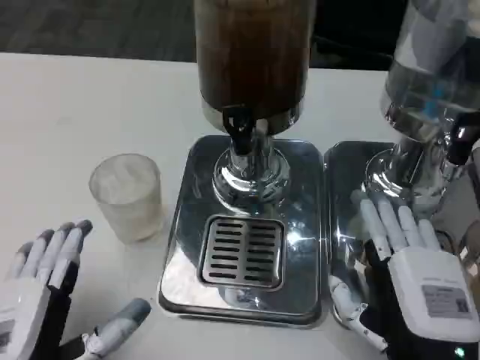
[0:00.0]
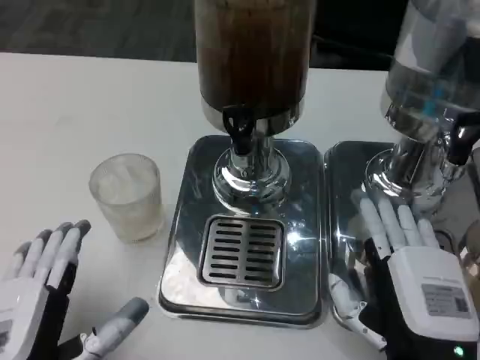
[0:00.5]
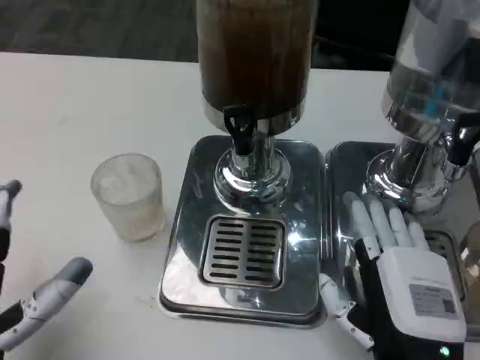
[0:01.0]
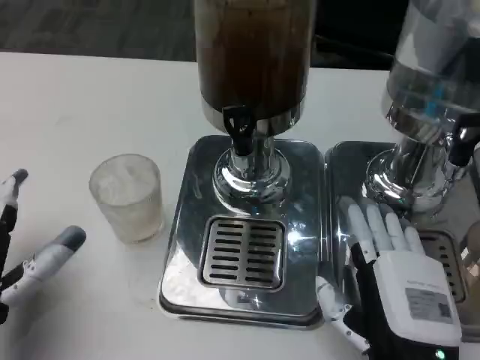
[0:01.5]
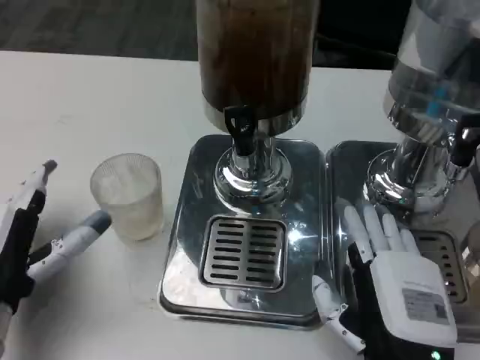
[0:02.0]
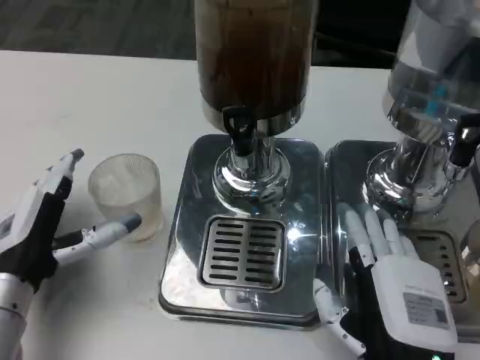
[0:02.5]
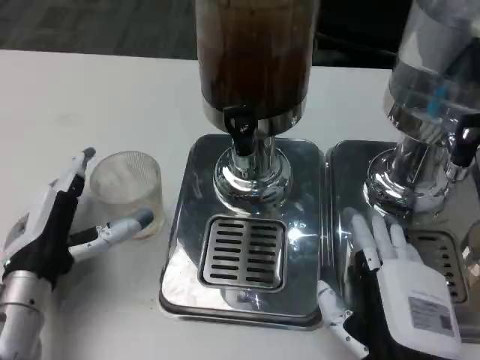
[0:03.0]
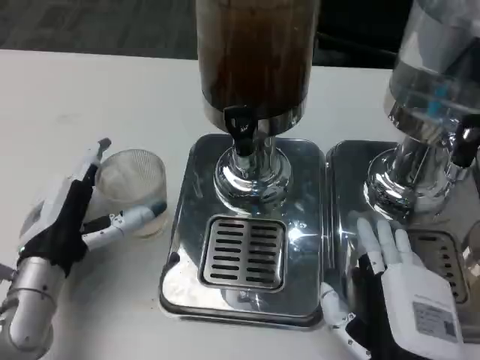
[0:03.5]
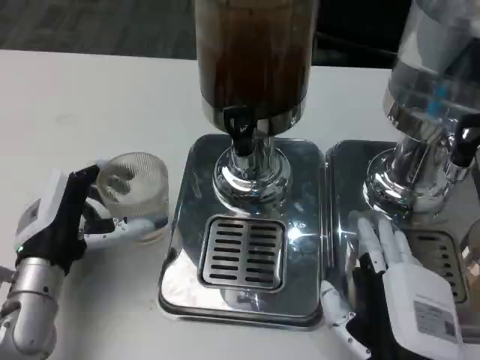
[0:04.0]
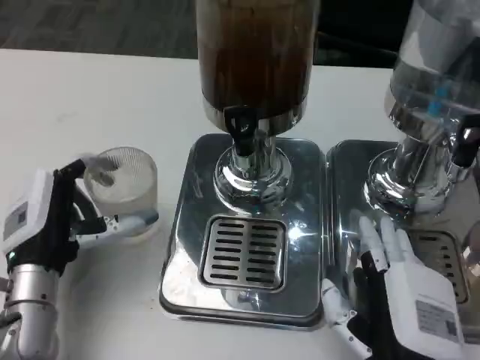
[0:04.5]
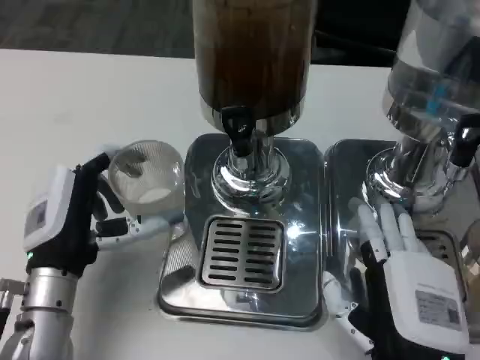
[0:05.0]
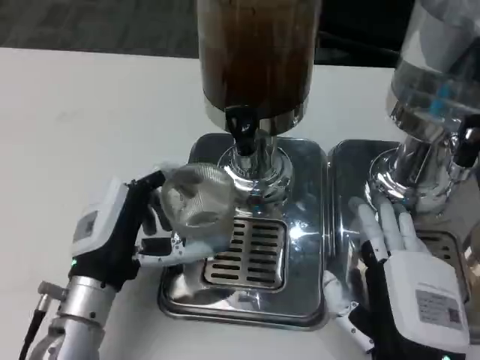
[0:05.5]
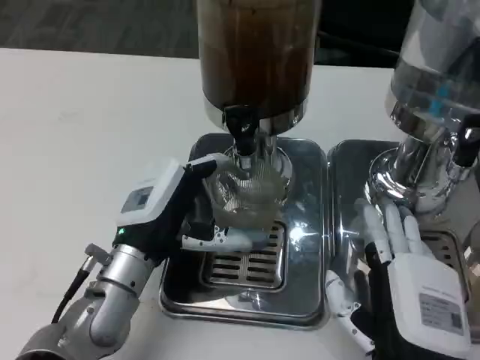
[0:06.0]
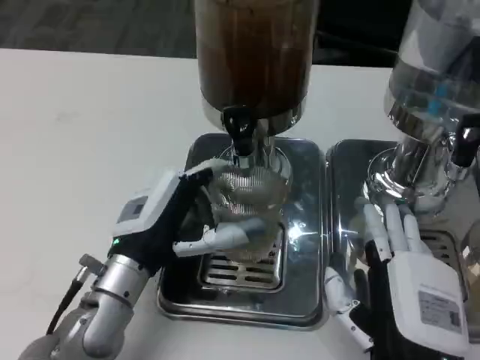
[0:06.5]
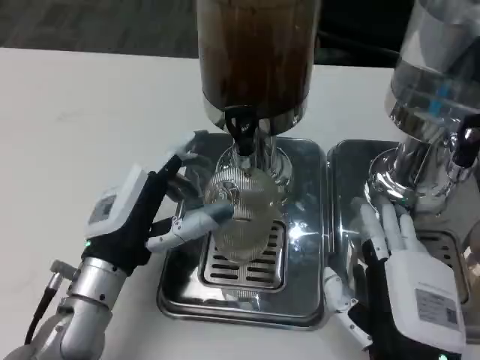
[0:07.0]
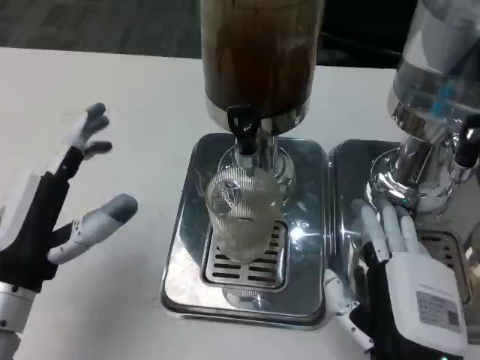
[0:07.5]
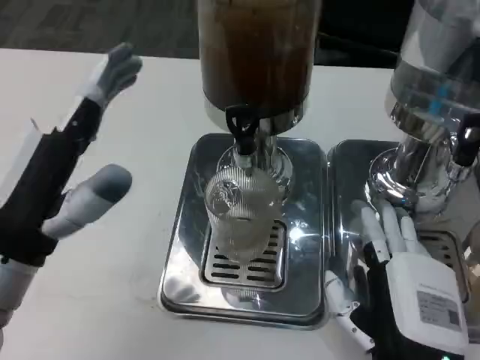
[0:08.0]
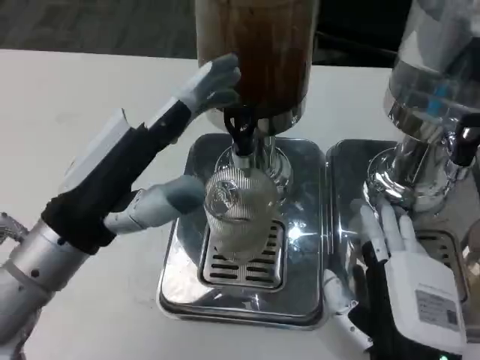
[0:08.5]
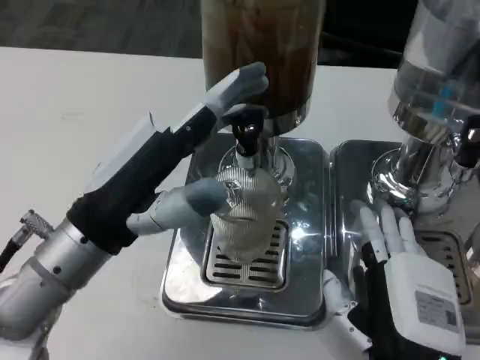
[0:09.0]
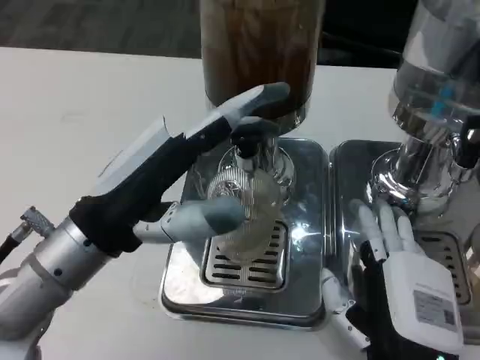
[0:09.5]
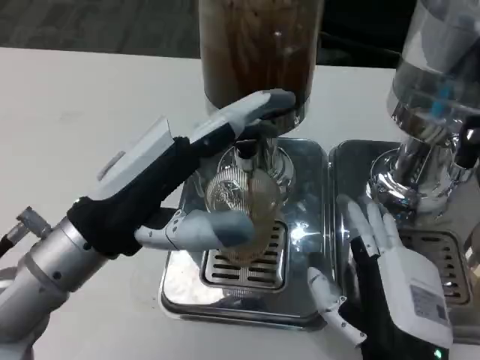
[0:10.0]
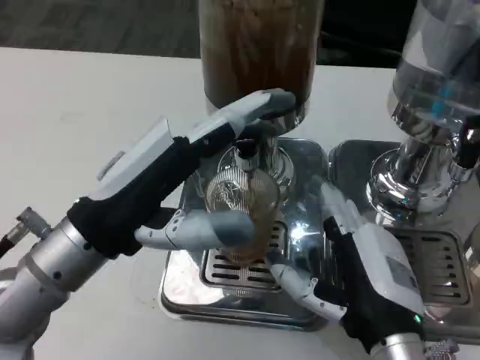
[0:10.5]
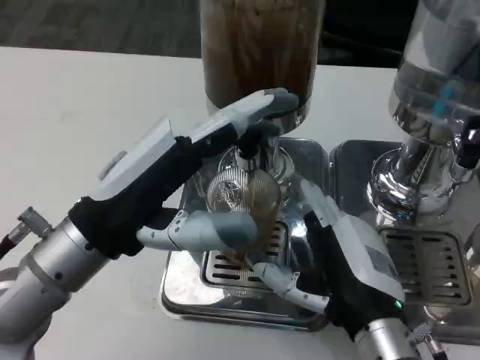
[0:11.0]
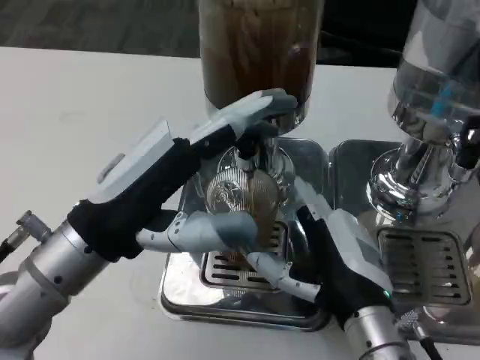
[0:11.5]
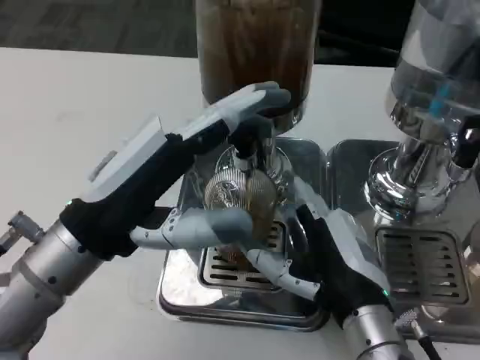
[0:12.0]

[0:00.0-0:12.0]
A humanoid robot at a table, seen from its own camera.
Task of the whole recording: Grasp the cup under the faucet to collect the drink, then remove the cup.
0:00.0 to 0:02.0: The left hand travels forward by some 10 cm.
0:02.0 to 0:04.0: The left hand changes place by some 5 cm.
0:04.0 to 0:06.0: The left hand travels to the right by roughly 5 cm.
0:06.0 to 0:08.0: The left hand travels upward, to the left and backward by some 15 cm.
0:08.0 to 0:10.0: The left hand moves some 5 cm.
0:10.0 to 0:12.0: The right hand shifts some 5 cm forward.

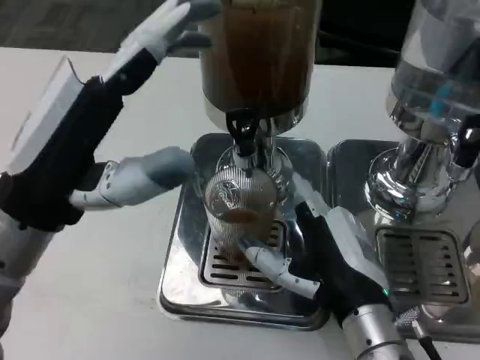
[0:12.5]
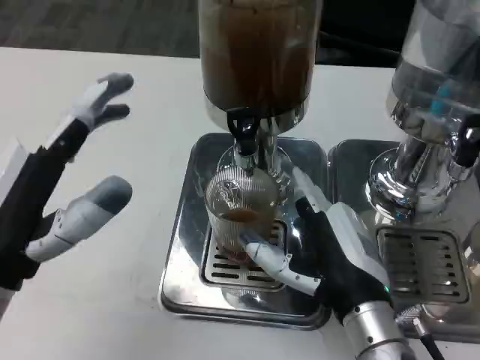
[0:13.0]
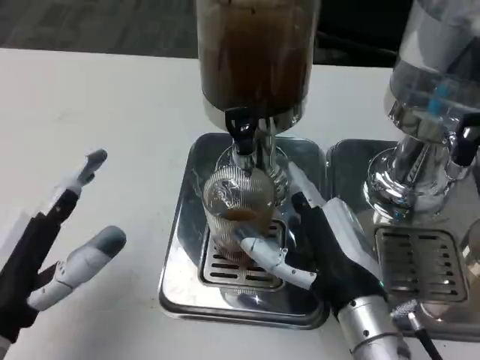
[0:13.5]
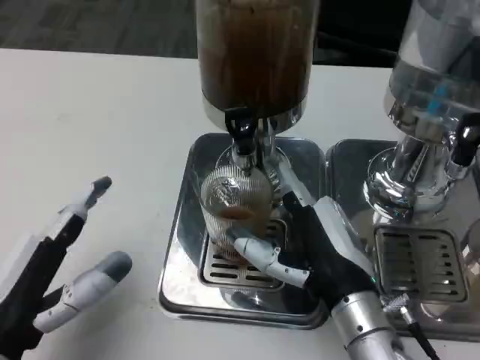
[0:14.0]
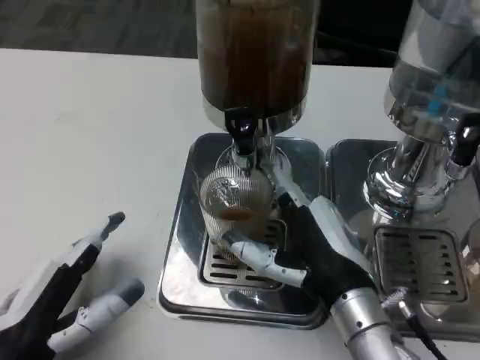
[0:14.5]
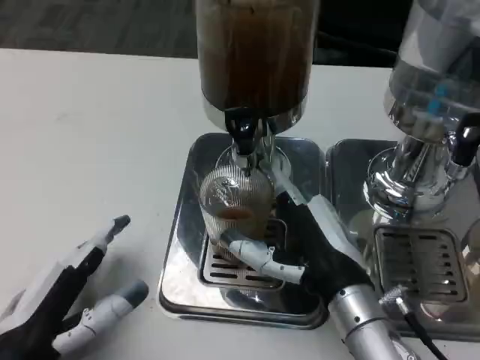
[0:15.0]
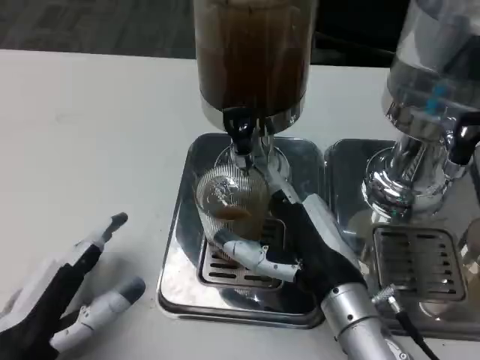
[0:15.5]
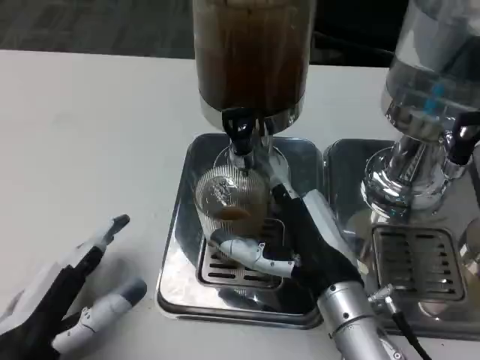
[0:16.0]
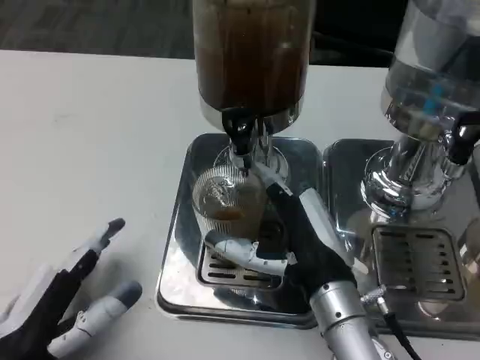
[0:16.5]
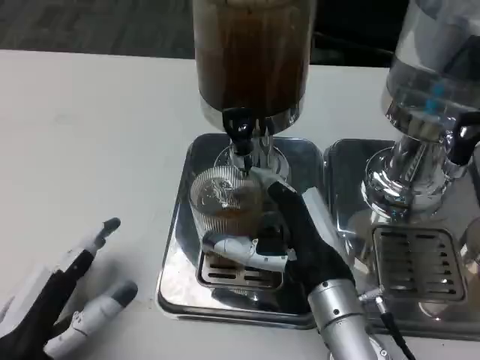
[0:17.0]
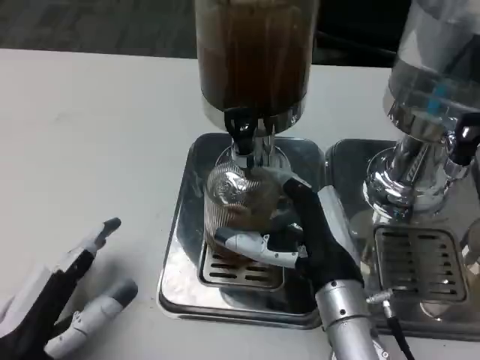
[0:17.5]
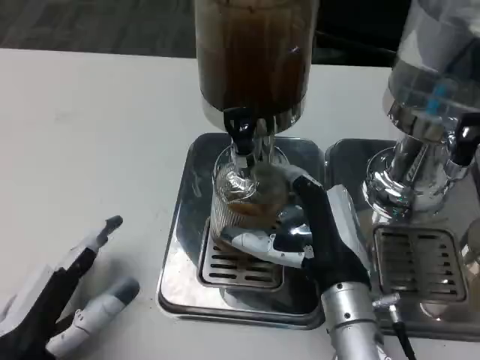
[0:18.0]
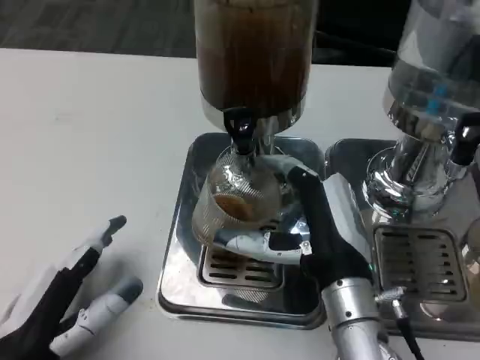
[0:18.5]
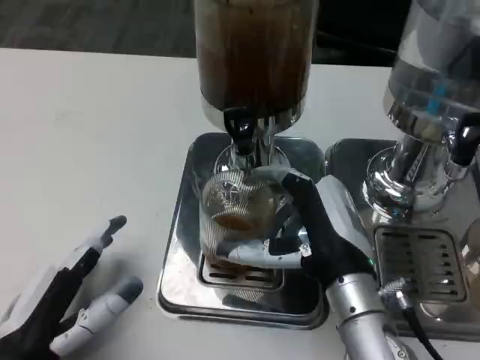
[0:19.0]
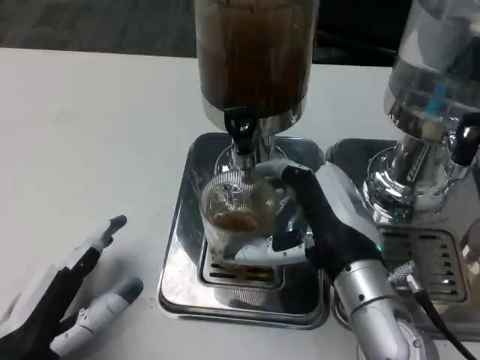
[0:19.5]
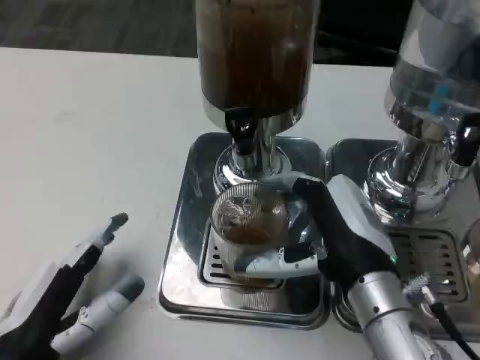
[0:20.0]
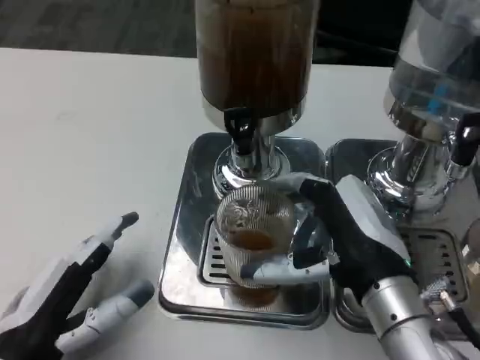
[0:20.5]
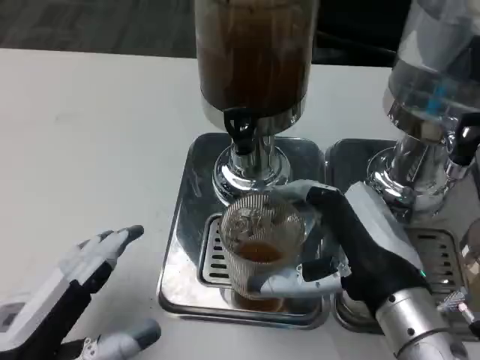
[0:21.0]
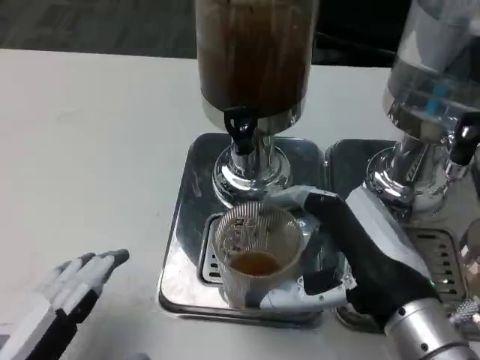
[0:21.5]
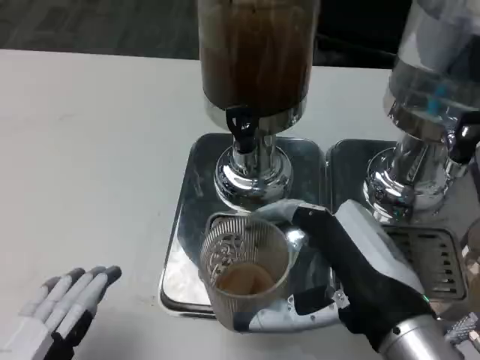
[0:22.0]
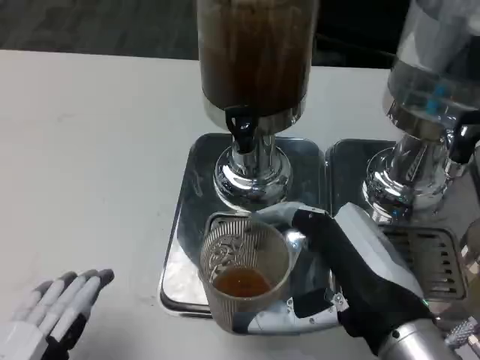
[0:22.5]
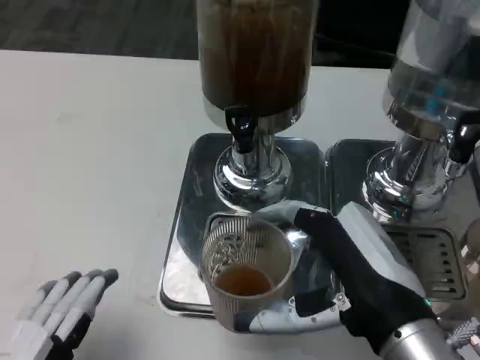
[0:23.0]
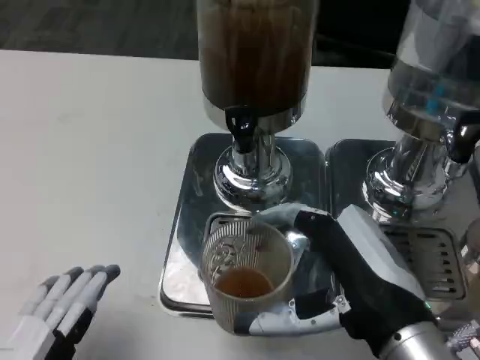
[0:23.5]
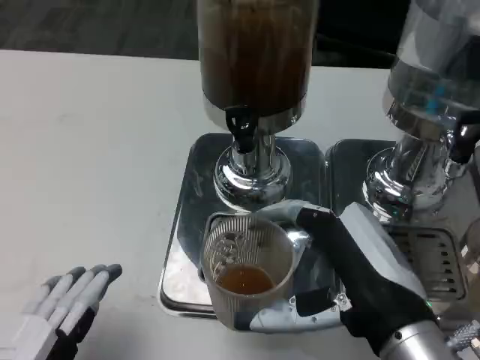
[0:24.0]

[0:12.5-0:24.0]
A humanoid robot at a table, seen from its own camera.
Task of the whole recording: Grasp the cup under the faucet to collect the drink, then remove the cup.
0:12.5 to 0:14.5: The left hand moves downward and backward, some 15 cm.
0:14.5 to 0:20.0: There are only small adjustments of the hands.
0:20.0 to 0:22.0: The two hands go about 5 cm backward.
0:22.0 to 0:24.0: The two hands keep their place.

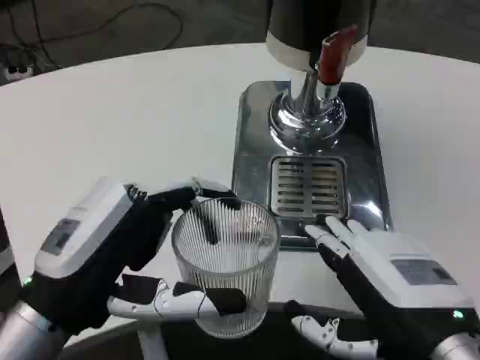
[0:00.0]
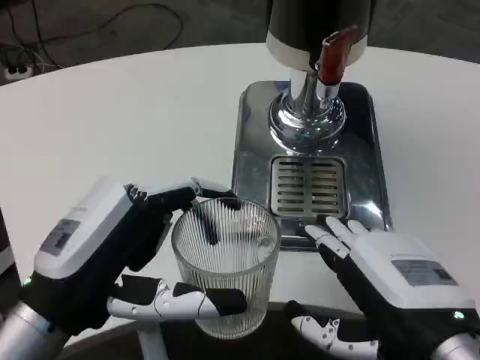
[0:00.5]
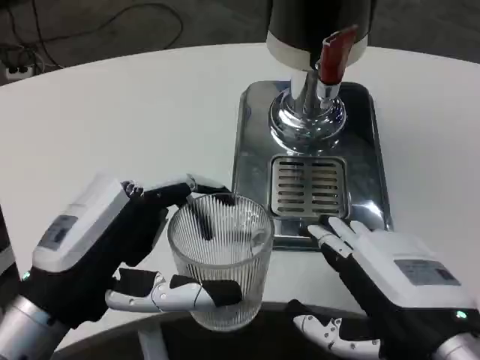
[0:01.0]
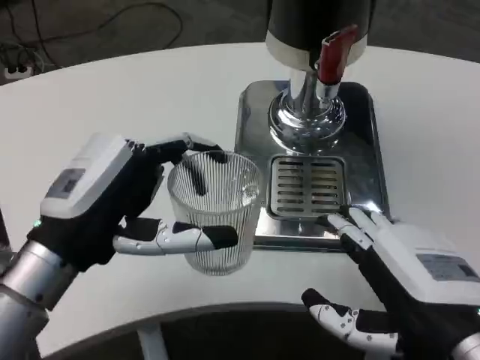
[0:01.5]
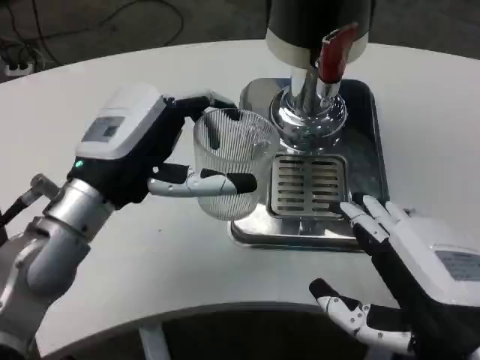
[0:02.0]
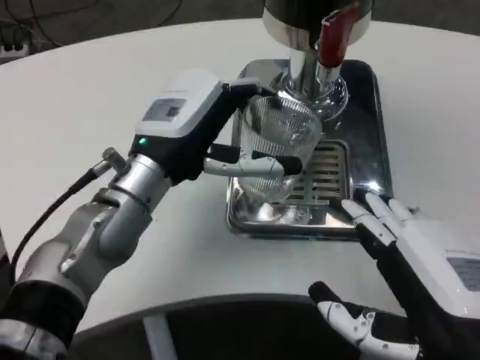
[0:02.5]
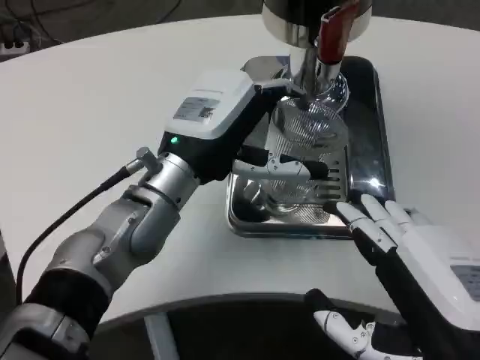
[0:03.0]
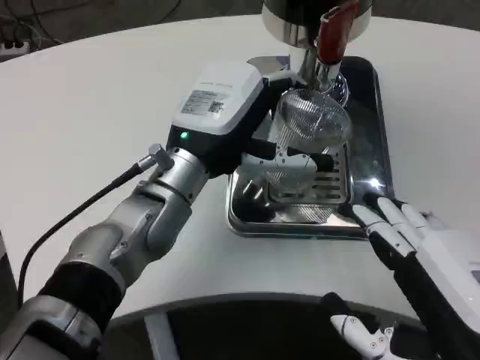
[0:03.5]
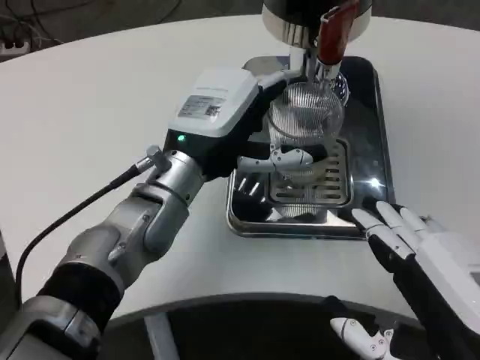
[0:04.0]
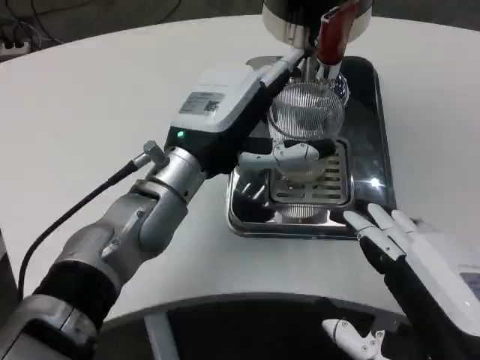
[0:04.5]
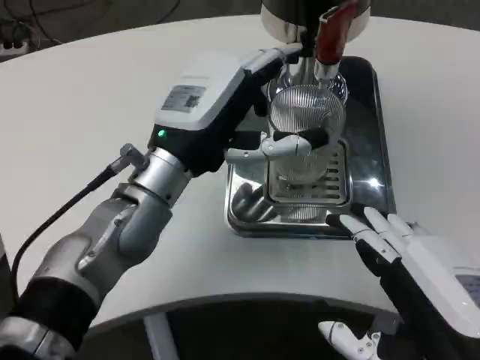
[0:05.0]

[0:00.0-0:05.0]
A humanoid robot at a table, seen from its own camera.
Task of the whole recording: Grasp the cup under the faucet to collect the drink, then remove the cup.
0:00.0 to 0:02.5: The left hand shifts roughly 15 cm forward and to the right.
